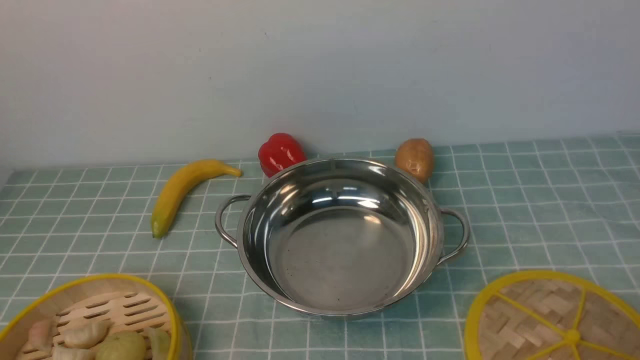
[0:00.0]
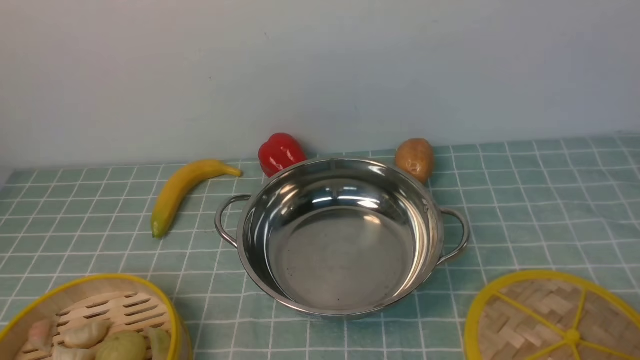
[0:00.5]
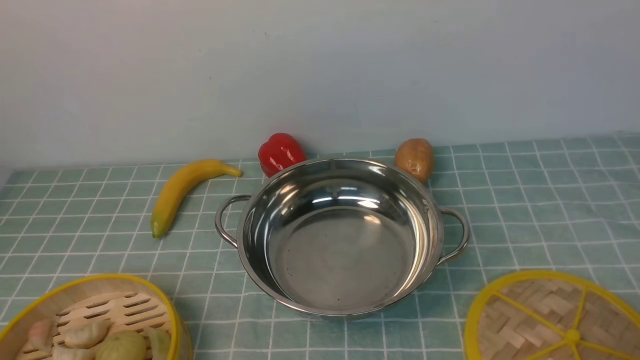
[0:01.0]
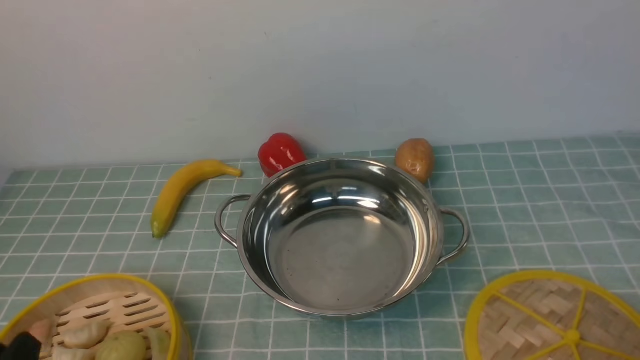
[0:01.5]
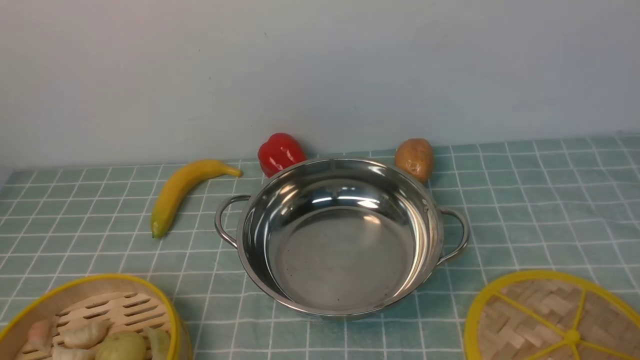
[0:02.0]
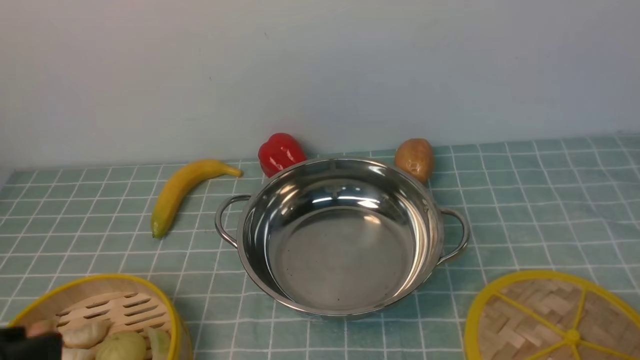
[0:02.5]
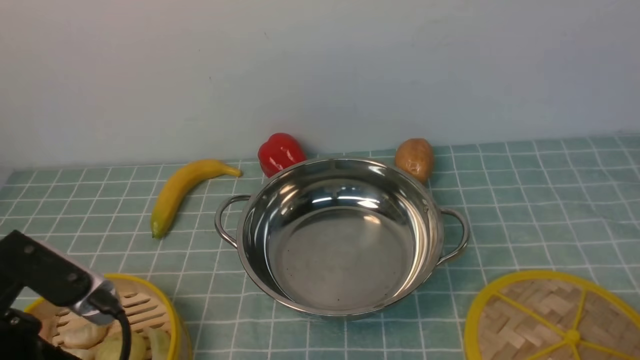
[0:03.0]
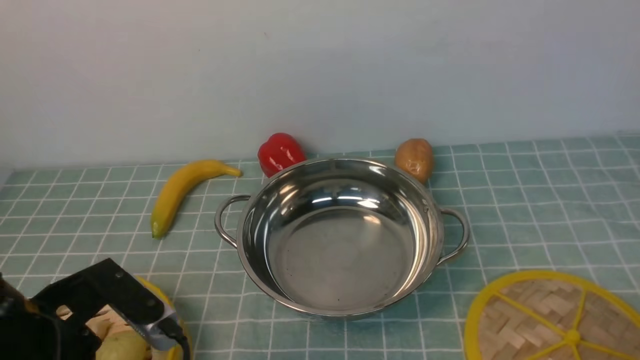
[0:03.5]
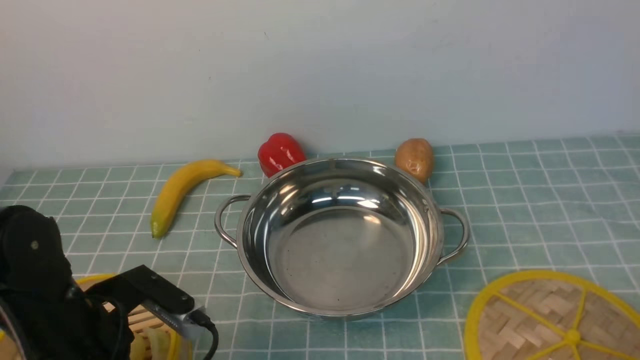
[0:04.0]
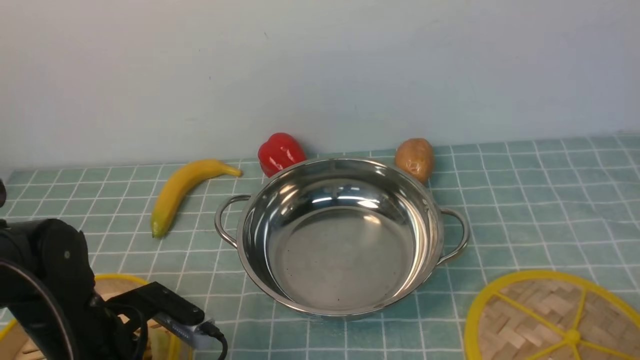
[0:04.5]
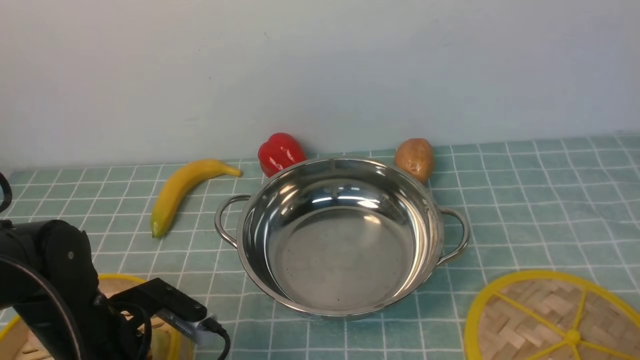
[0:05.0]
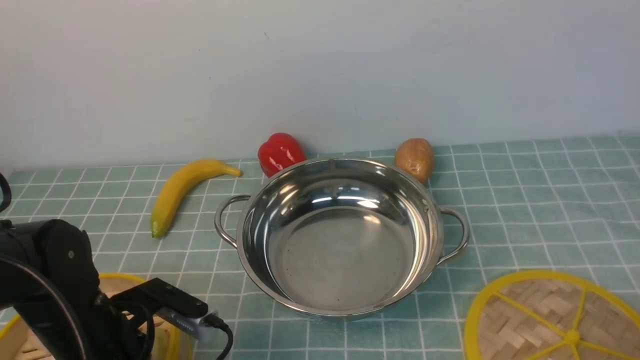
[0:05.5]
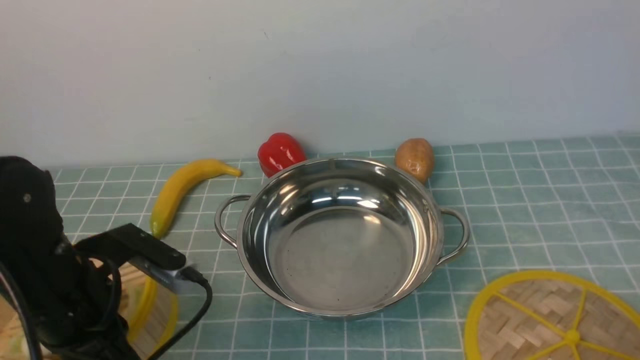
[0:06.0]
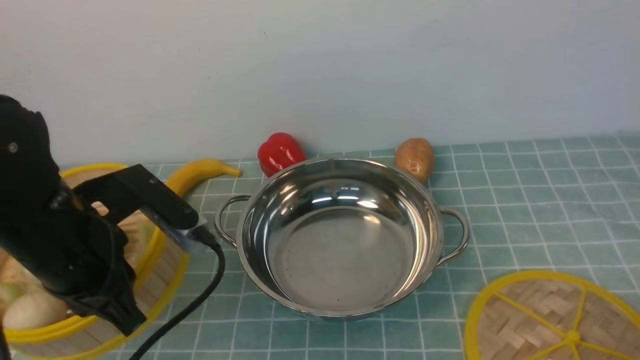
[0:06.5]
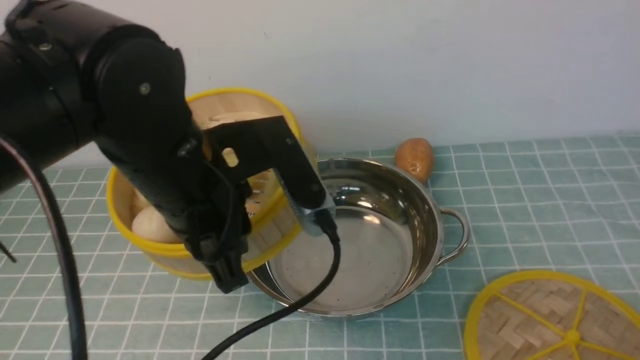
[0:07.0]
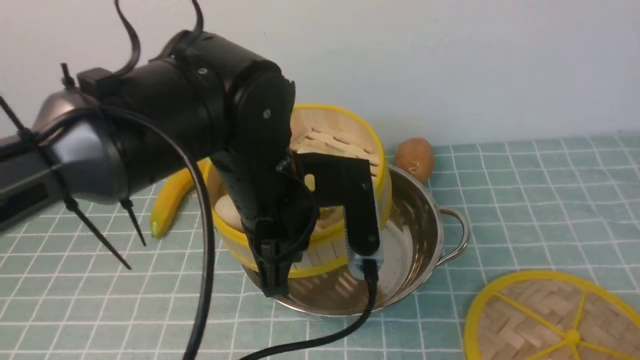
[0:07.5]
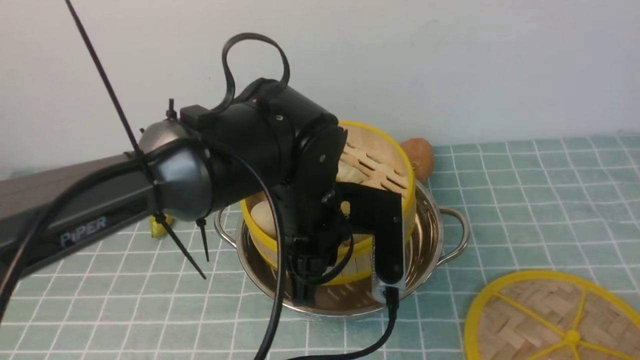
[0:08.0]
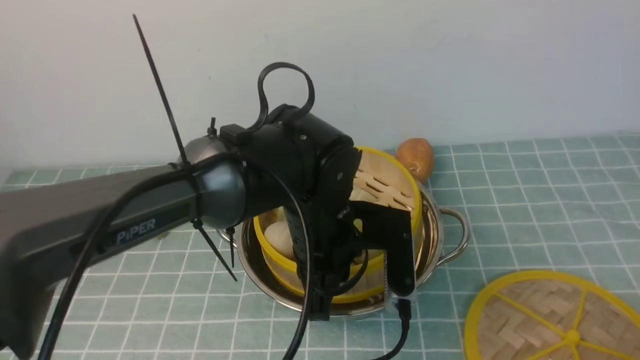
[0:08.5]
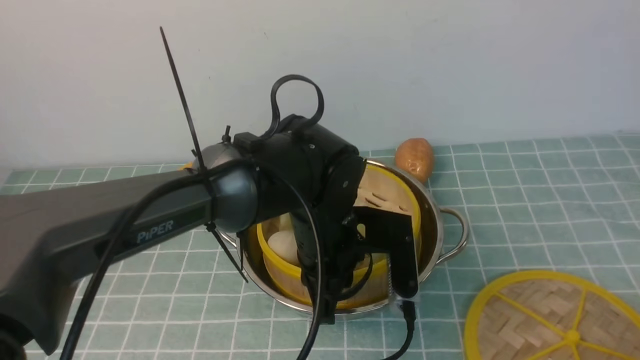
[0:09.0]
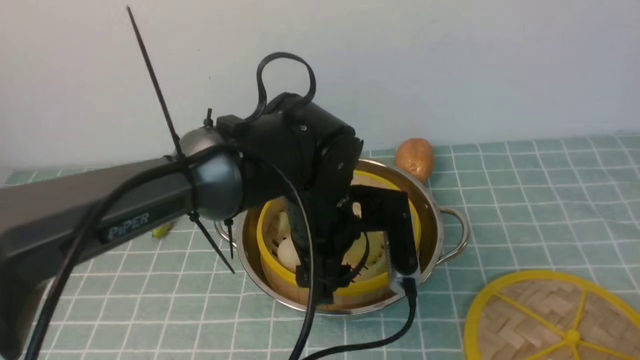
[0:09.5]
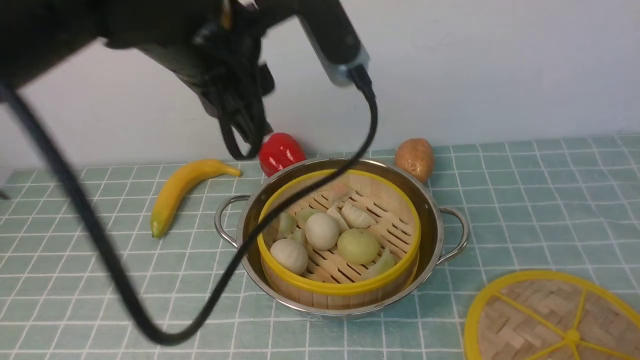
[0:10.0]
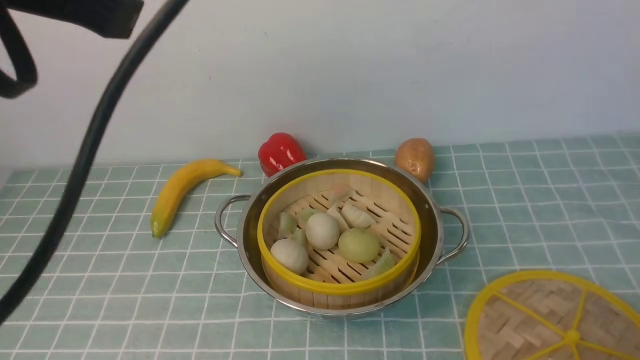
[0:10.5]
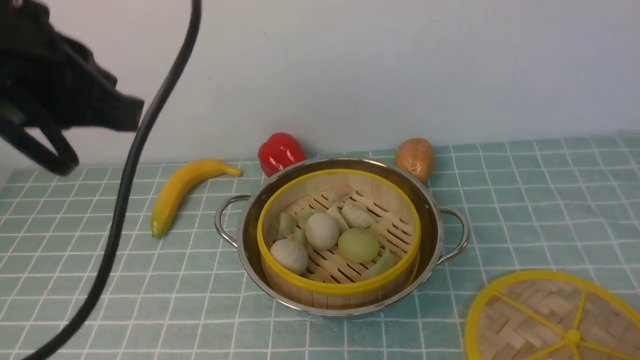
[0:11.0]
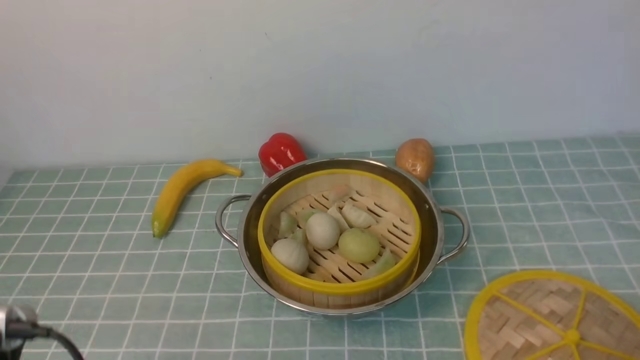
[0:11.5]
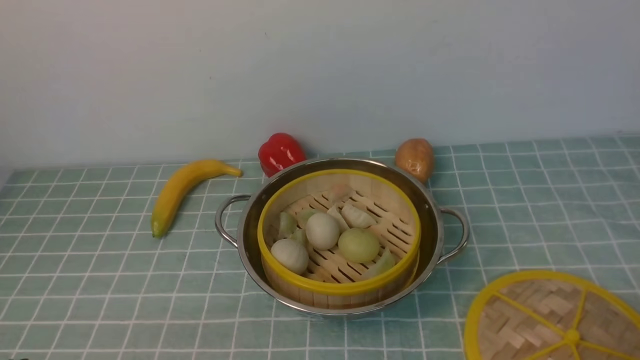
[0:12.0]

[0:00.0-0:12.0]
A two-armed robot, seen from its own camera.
Task of the whole recording: place the steamer in the pot on the blue tablecloth, and put the lid on the steamer.
Step, 0:00.0 to 0:06.5: use the left arm to lift the steamer closest to it.
Step, 0:07.0 to 0:09.5: use the left arm to put the steamer into the iron steamer pot in the middle.
0:02.0 to 0:04.0: The left gripper goes about 15 cm forward.
0:04.0 to 0:06.0: The left gripper closes up.
0:06.0 to 0:08.0: The left gripper goes some 20 cm to the right.
0:08.0 to 0:10.0: The left gripper heads upward, covering approximately 10 cm, and opens up.
0:10.0 to 0:12.0: The left gripper heads backward, to the left and downward, covering roughly 35 cm, and closes up.

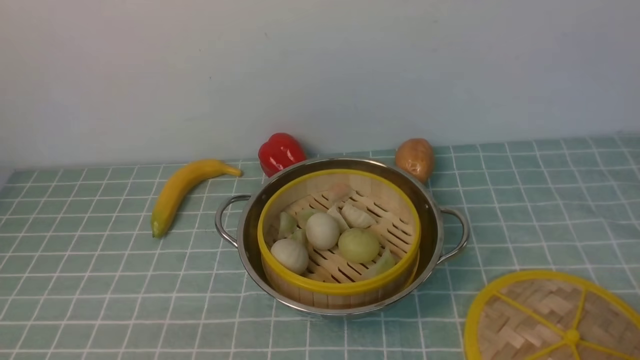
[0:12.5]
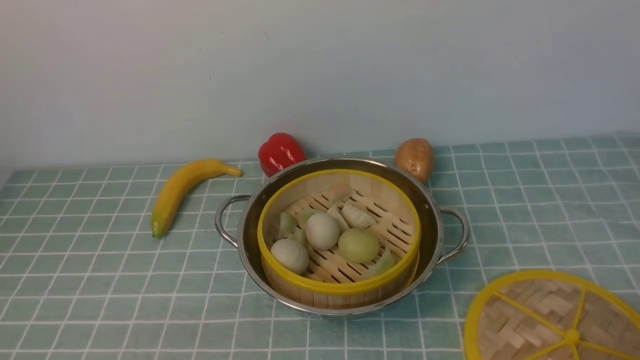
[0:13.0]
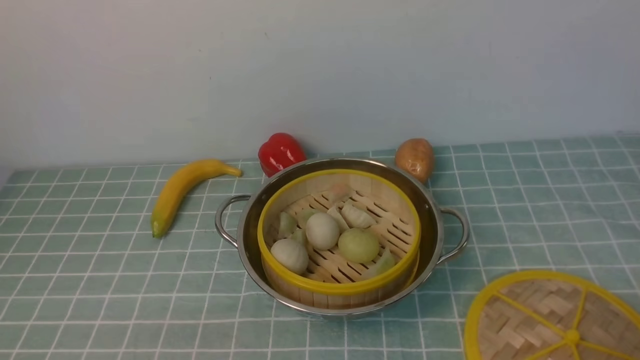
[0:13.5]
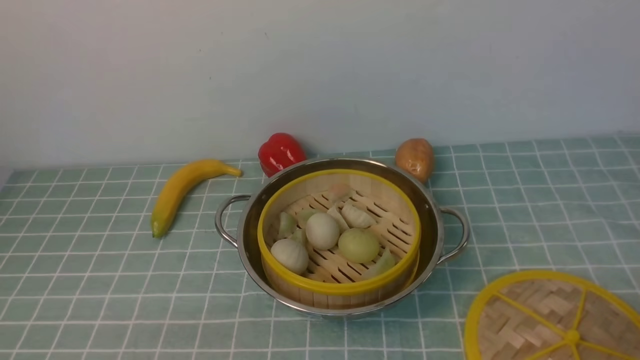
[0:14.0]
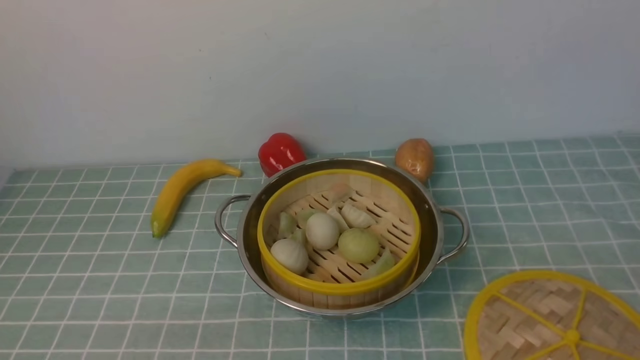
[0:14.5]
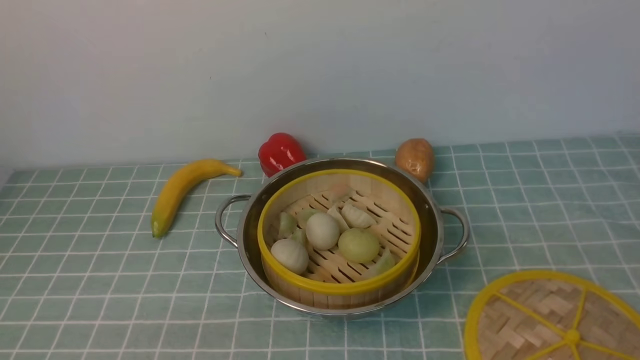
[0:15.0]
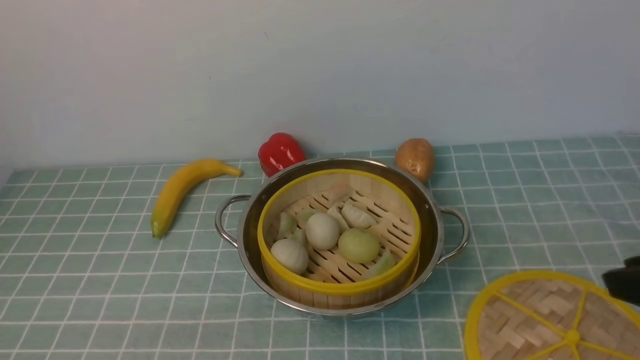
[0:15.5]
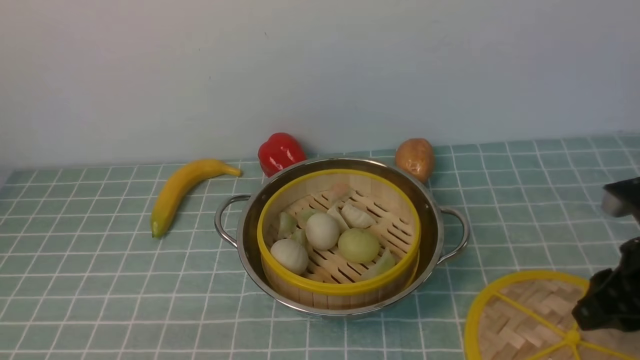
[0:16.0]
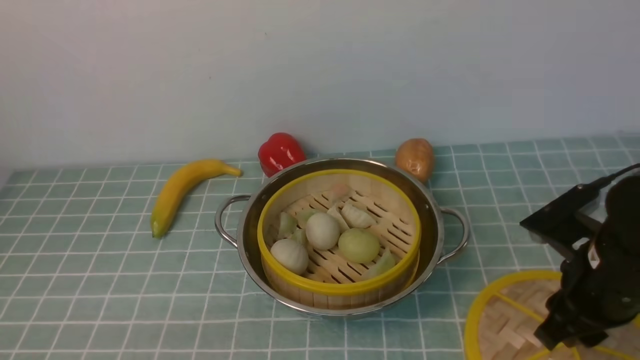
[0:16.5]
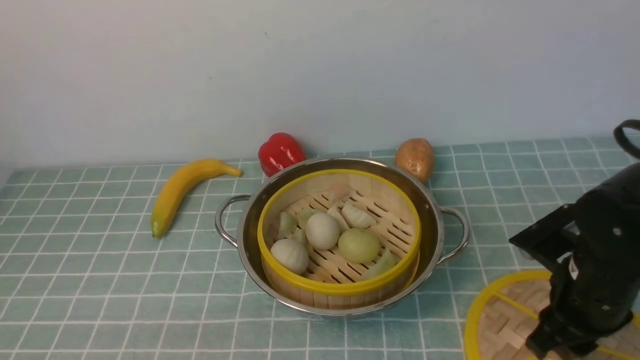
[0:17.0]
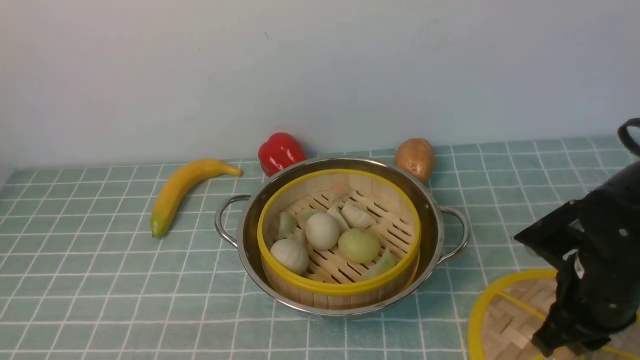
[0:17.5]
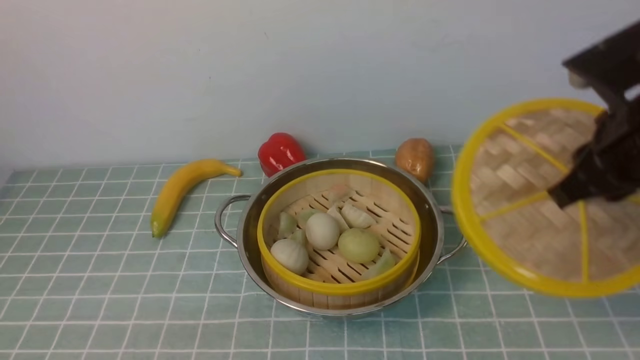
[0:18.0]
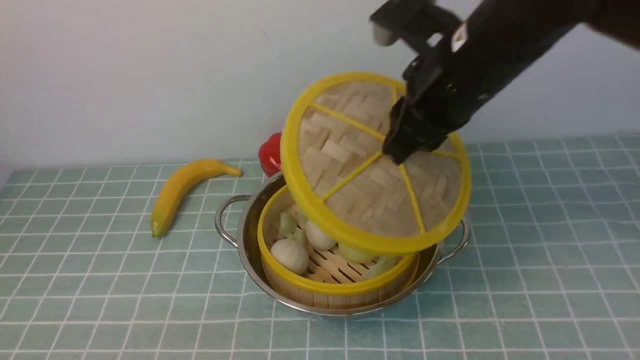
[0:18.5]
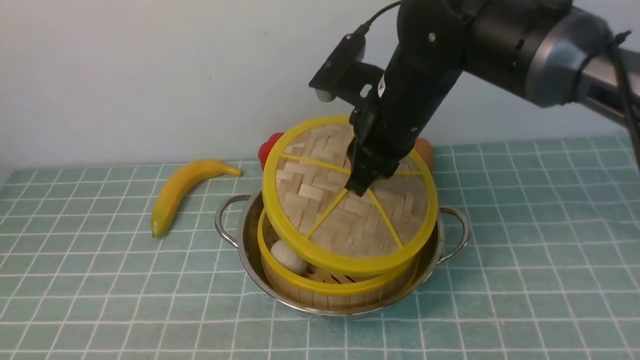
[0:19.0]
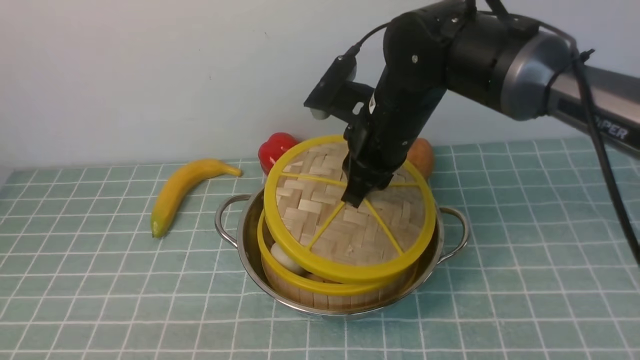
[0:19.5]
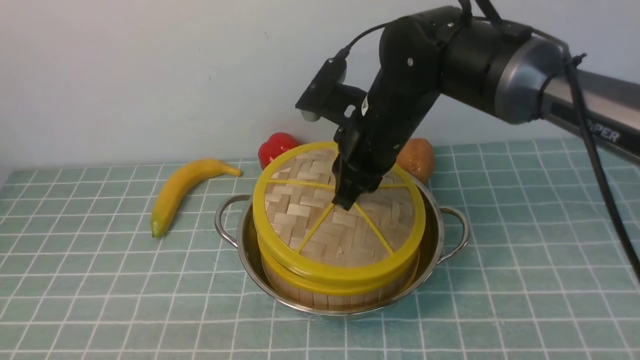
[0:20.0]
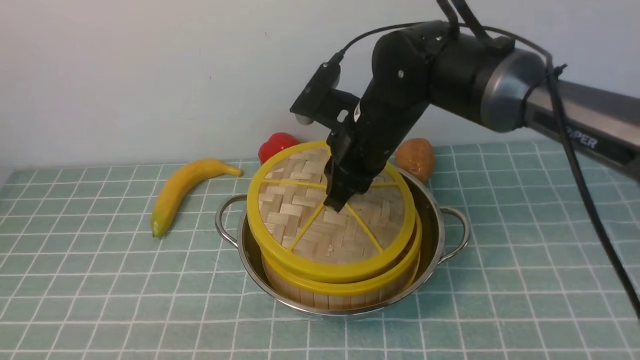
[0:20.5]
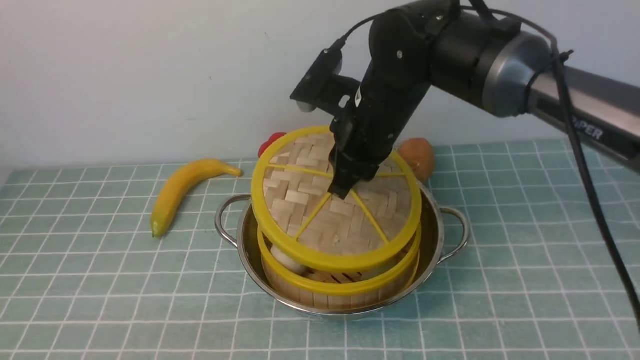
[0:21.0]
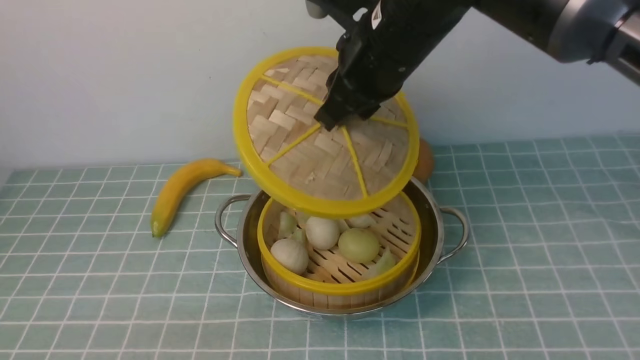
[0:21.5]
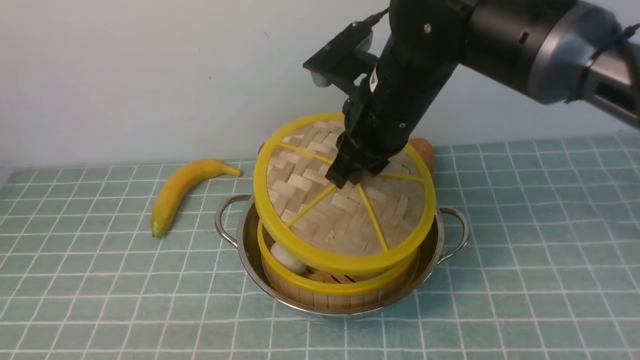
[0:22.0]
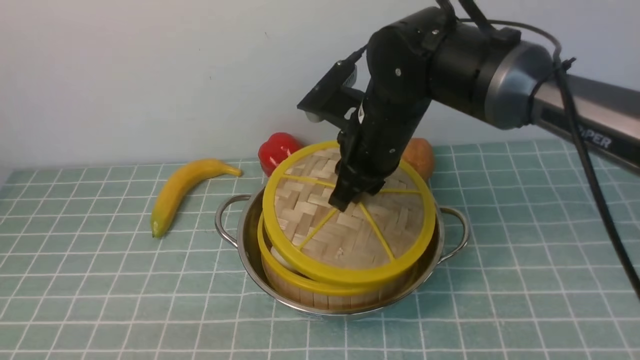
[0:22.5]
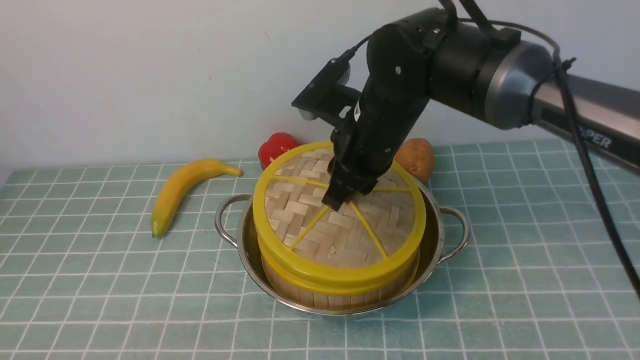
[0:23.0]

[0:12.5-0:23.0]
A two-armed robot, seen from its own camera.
Task of the whole recording: place the steamer in the pot on the blue tablecloth, and put the lid on the steamer.
Step, 0:12.5 to 0:18.0: use the right arm to lift the lid of the steamer.
0:14.5 to 0:16.5: The right gripper travels forward and to the left by approximately 20 cm.
0:16.5 to 0:19.0: The right gripper moves to the left, forward and upward, some 25 cm, and closes up.
0:19.0 to 0:21.0: The grippers move only a little.
0:21.0 to 0:23.0: The right gripper moves about 5 cm upward and comes back.
